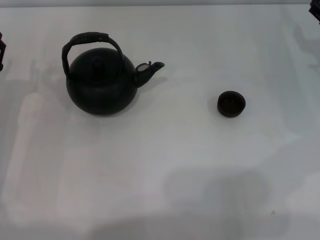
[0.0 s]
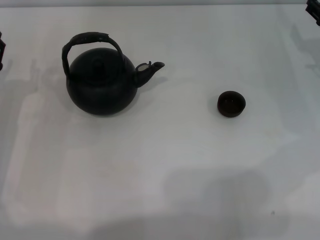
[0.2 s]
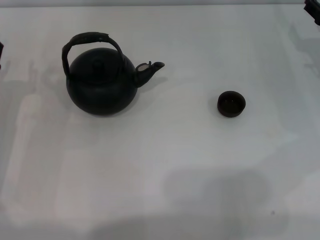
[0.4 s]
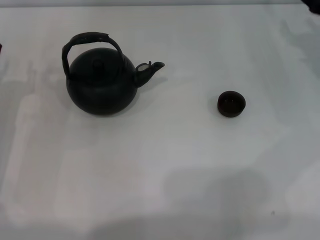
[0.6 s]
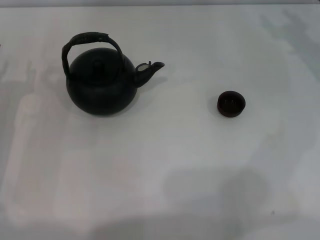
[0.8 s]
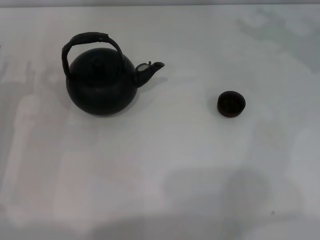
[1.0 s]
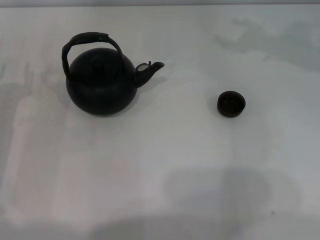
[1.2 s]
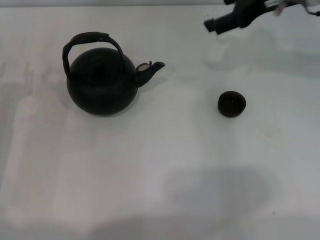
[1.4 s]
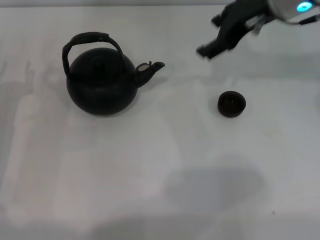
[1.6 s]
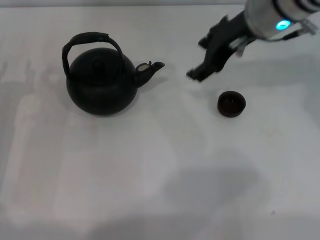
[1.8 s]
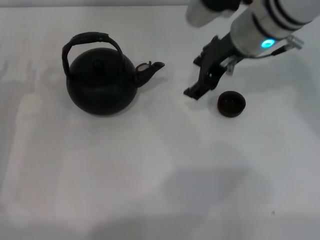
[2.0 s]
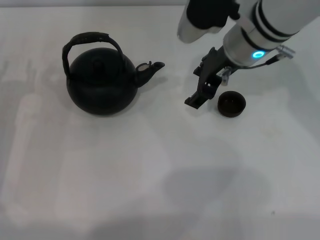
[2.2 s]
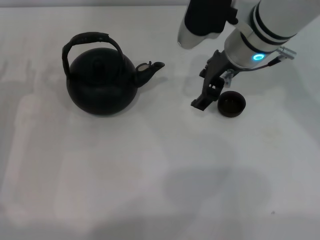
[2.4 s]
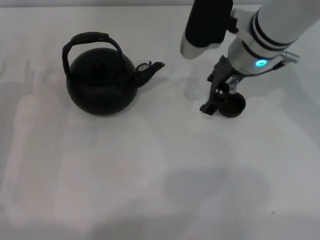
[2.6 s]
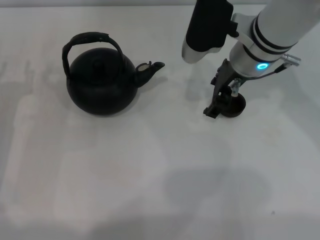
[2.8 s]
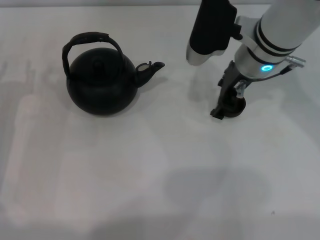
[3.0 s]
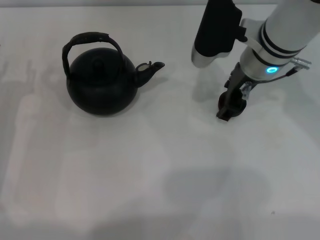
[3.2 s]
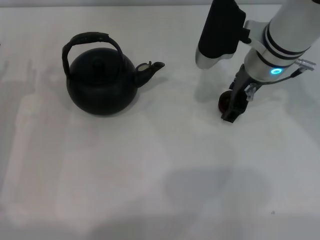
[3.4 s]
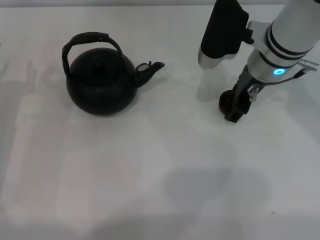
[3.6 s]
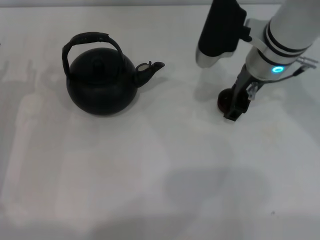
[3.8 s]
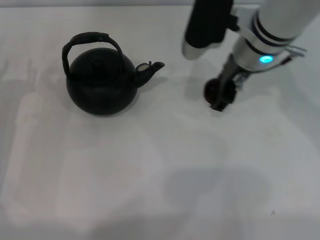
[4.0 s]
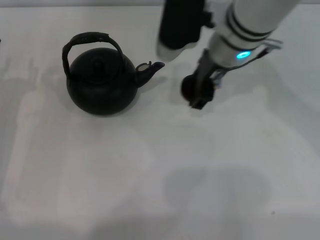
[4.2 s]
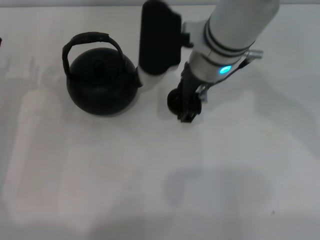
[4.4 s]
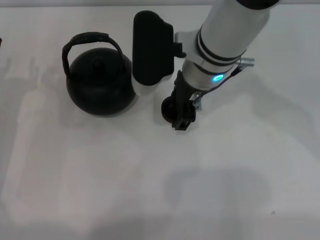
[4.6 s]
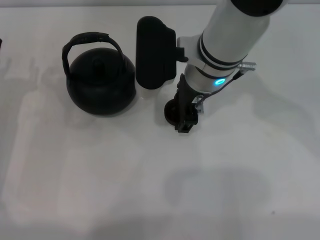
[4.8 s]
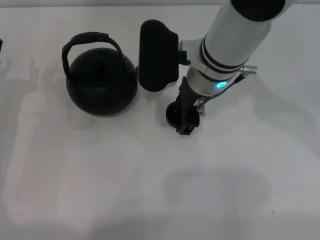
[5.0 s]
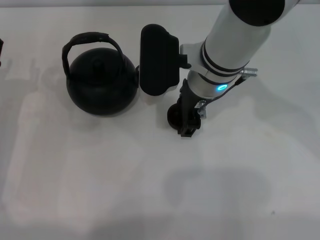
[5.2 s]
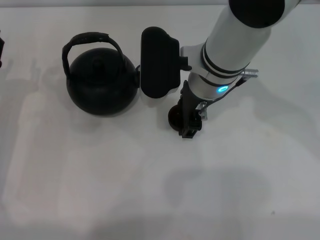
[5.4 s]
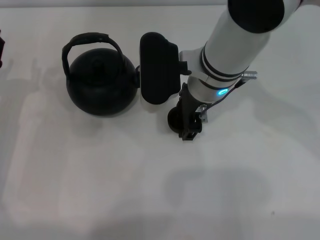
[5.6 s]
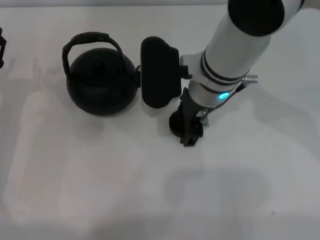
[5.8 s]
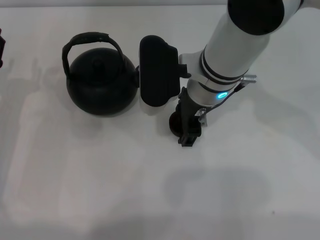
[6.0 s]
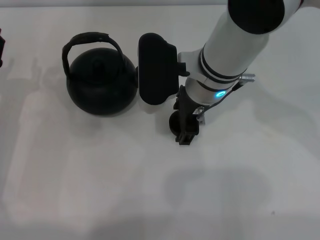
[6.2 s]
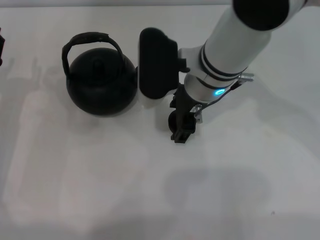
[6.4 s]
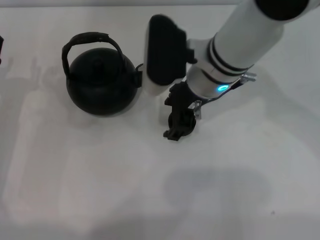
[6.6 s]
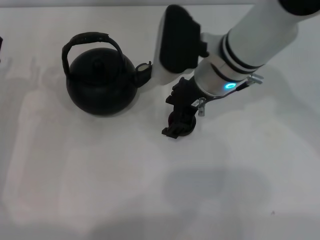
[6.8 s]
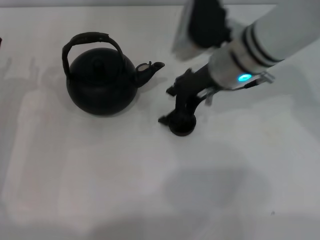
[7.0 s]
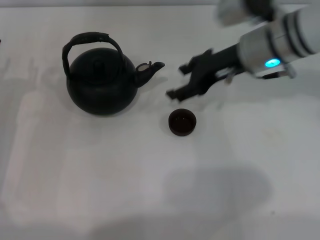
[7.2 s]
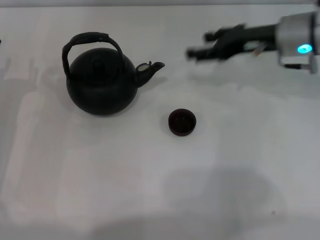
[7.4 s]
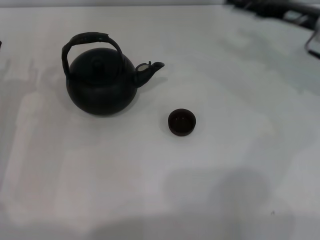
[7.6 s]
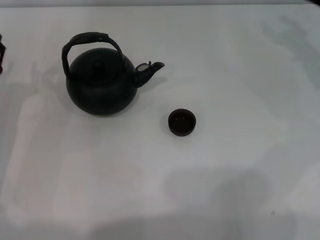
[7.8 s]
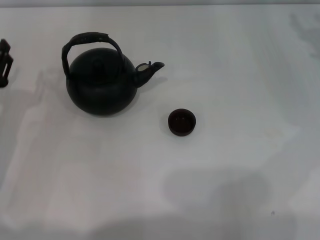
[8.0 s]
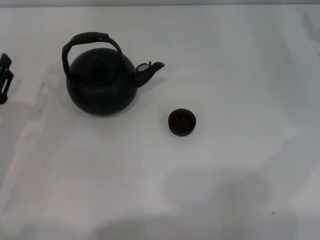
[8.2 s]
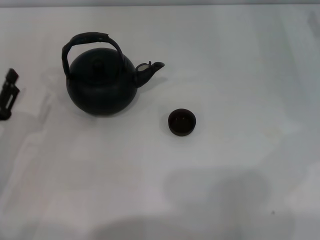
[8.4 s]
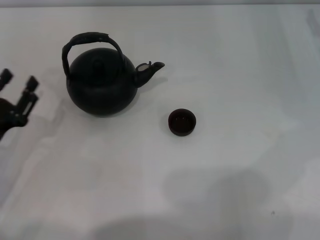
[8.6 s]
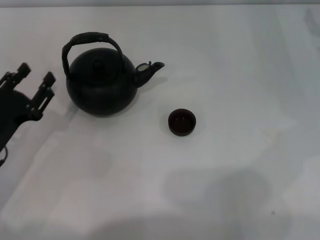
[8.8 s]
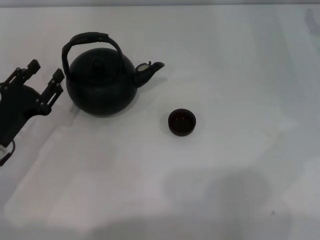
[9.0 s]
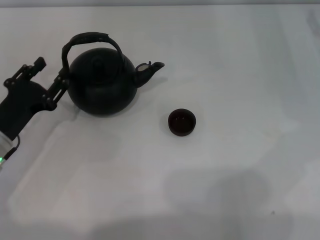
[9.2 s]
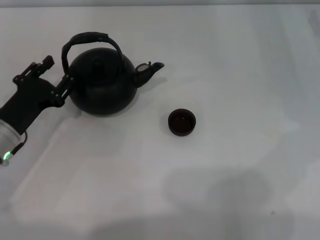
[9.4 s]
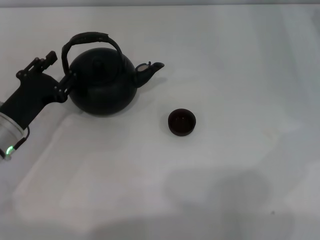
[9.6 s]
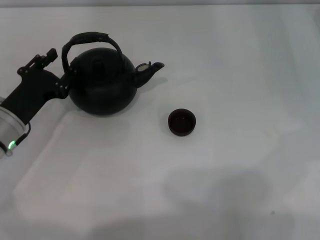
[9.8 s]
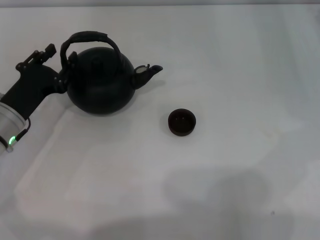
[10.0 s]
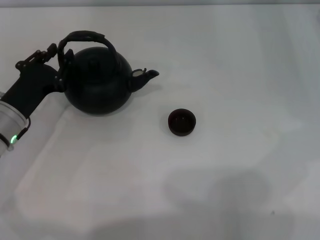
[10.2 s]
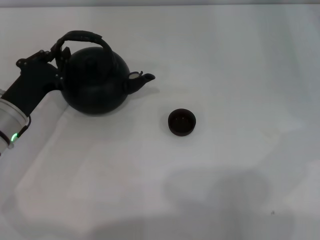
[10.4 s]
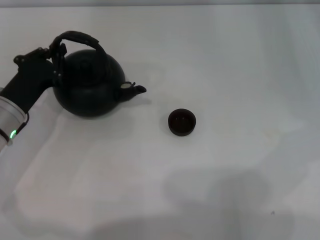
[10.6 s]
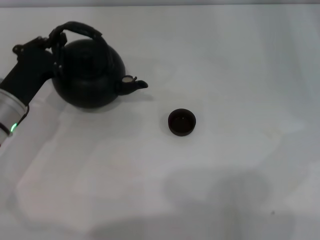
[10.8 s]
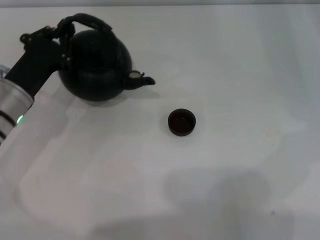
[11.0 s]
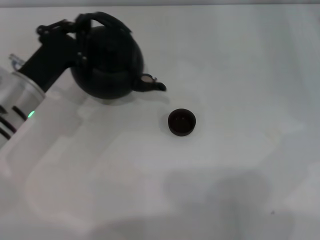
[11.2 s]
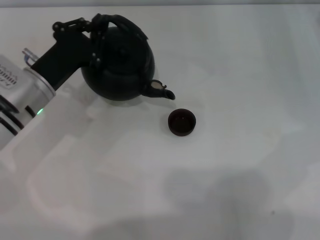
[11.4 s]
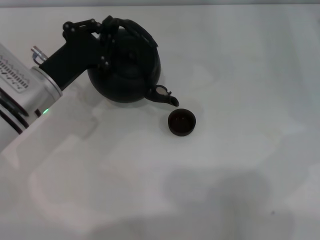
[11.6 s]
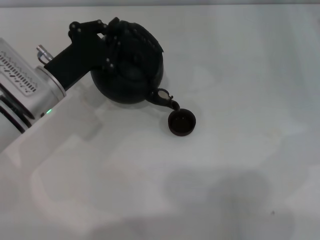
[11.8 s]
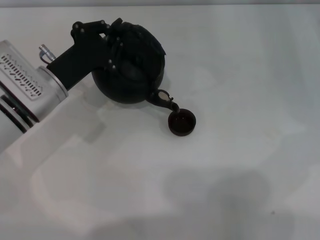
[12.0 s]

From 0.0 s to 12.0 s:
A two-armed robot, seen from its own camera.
Task of the whole recording: Grasp the handle of the teapot with one hand and pour tea into the teacup.
Step, from 0.0 s to 3.8 s: Pick up the teacup with the right gripper.
Step, from 4.2 s to 7.2 s: Place the teacup in the center of view with the right gripper.
Step, from 7.4 s to 11.0 s: Pick up the teapot with the left gripper.
From 0.0 s to 1.6 s: The right gripper goes about 25 cm to the left and upward.
From 1.6 s to 3.0 s: The right gripper moves downward, about 5 cm.
From 3.0 s to 4.4 s: The right gripper is displaced to the left by about 5 cm.
From 4.4 s to 6.0 s: The grippers stay close to where they were, moving slightly.
From 6.0 s to 7.6 s: The right gripper shifts about 20 cm to the right.
From 7.6 s to 9.0 s: The right gripper is displaced to the right by some 10 cm.
From 9.0 s to 10.4 s: The left gripper ends up roughly 5 cm from where it was, and closes its fingers.
From 10.4 s to 12.0 s: The left gripper goes roughly 5 cm to the right.

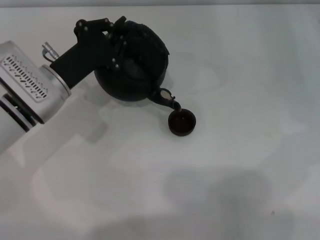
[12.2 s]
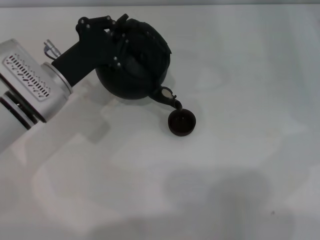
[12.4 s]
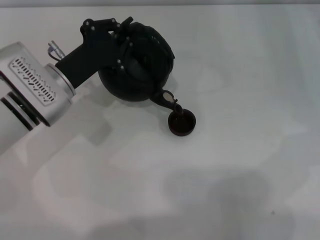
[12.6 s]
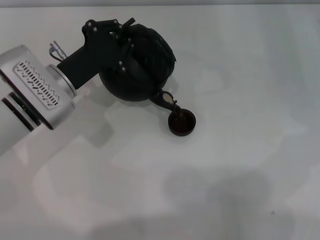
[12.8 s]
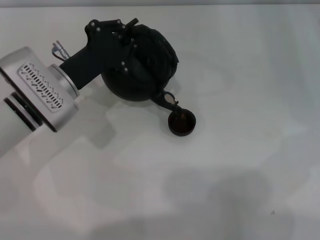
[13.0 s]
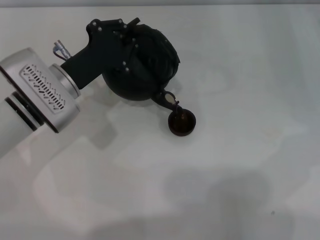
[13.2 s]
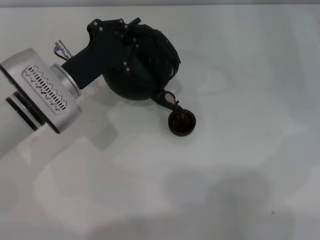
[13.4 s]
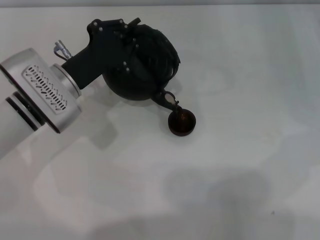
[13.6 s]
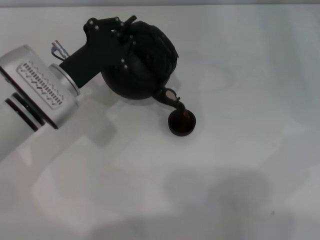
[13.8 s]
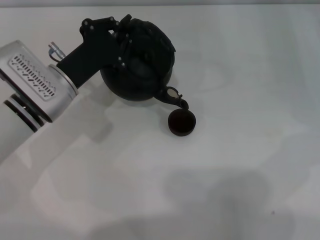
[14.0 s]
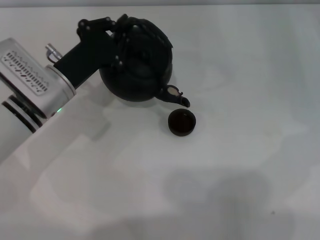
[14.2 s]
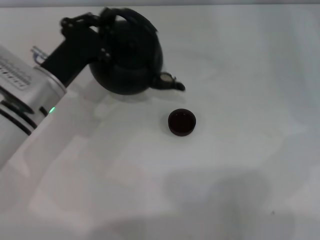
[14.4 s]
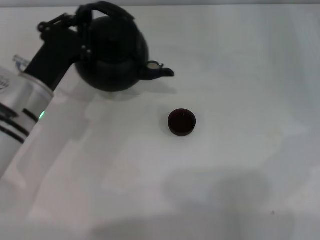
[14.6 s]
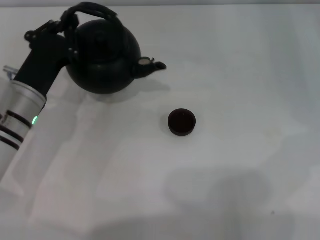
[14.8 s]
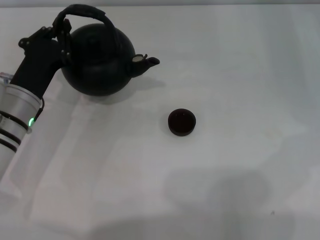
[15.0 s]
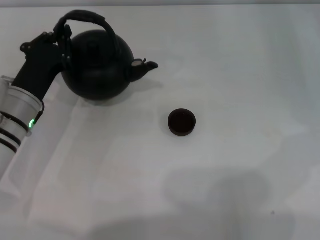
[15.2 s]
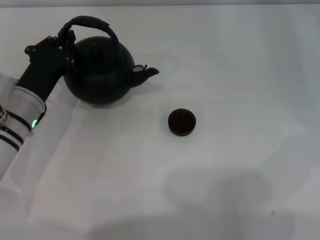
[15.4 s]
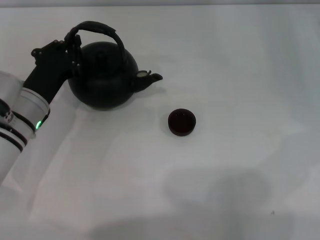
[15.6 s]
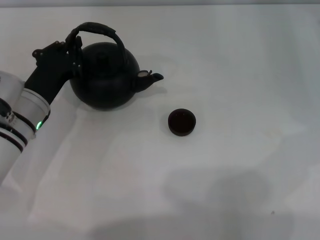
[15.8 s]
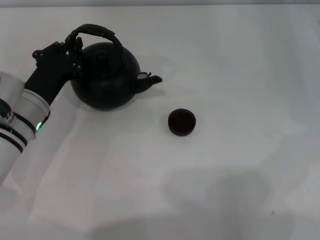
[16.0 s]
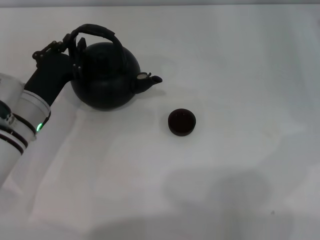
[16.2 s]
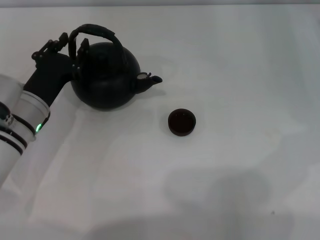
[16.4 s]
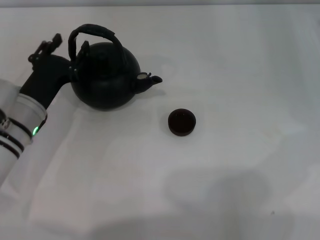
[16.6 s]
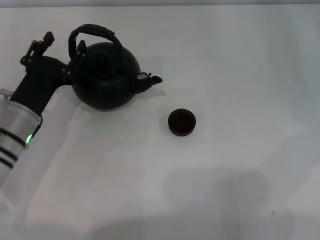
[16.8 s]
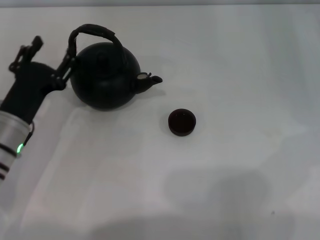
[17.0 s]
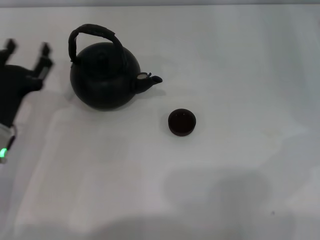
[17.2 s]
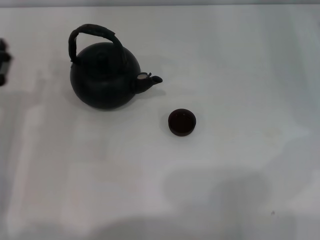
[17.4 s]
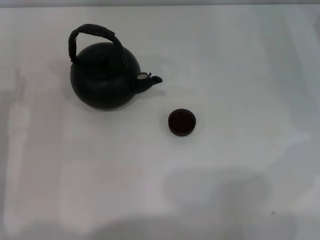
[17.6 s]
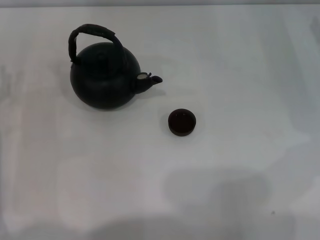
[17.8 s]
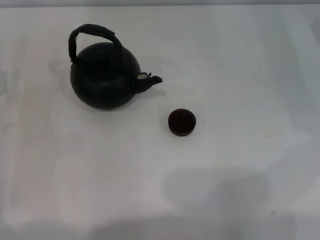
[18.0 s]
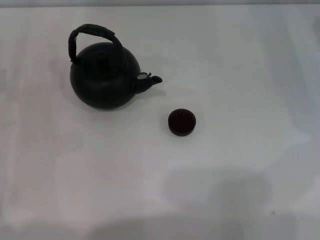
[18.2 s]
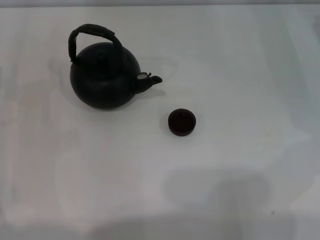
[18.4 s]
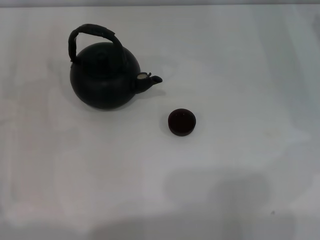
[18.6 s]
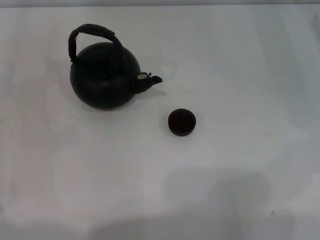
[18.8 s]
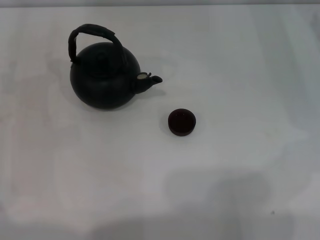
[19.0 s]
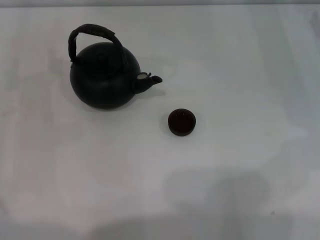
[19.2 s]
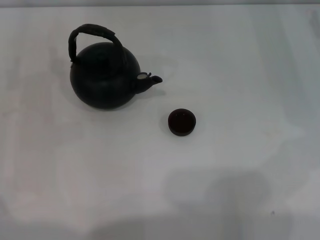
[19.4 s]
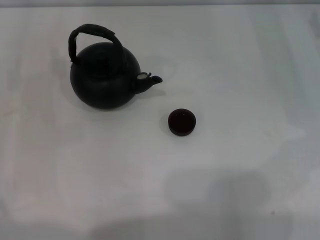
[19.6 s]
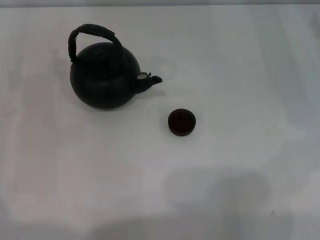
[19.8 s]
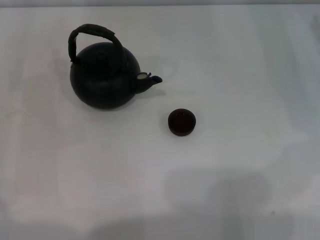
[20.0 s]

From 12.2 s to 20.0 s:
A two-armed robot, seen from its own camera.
Task of the whole recording: Grasp the handle of the teapot with one hand and pour tea into the teacup.
Step, from 12.2 s to 15.0 s: Pour tea into the teacup with the left gripper.
Step, from 15.2 s to 17.0 s: Put down the teapot with the left gripper.
From 12.2 s to 13.8 s: There are only small adjustments of the grippers.
From 13.8 s to 15.4 s: The left gripper changes place by approximately 5 cm.
From 15.4 s to 16.8 s: The left gripper opens up.
From 16.8 s to 18.4 s: The left gripper travels to the left by some 10 cm.
